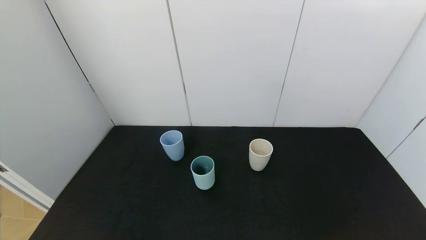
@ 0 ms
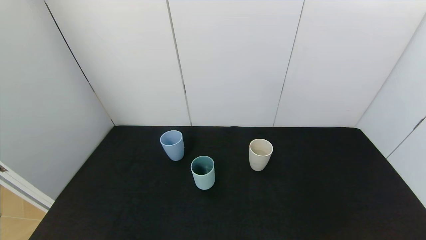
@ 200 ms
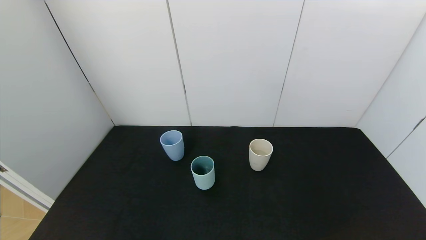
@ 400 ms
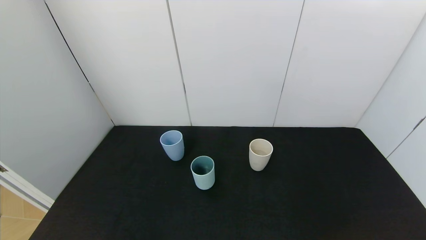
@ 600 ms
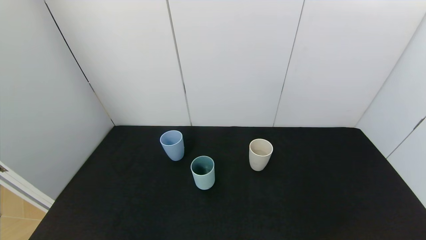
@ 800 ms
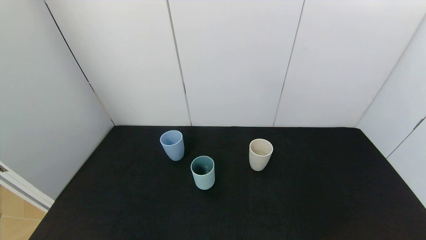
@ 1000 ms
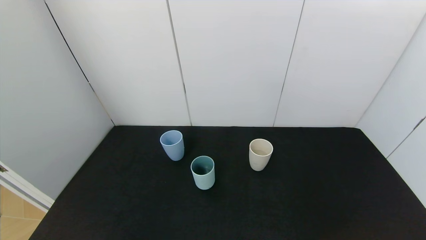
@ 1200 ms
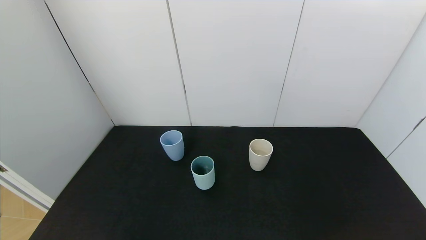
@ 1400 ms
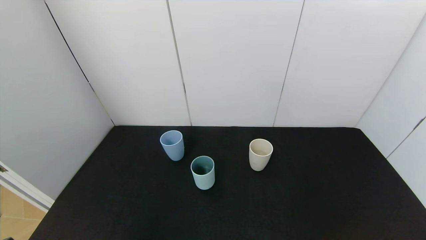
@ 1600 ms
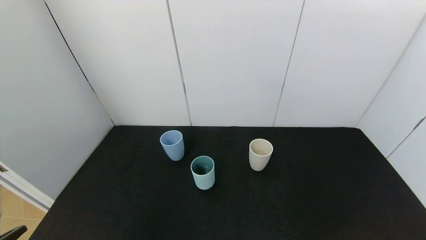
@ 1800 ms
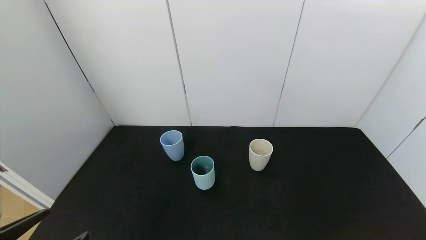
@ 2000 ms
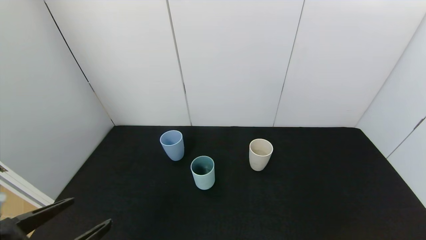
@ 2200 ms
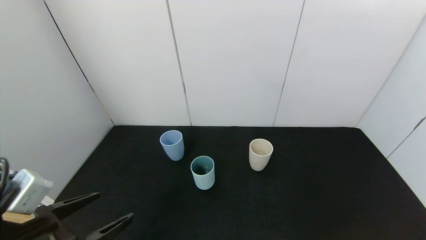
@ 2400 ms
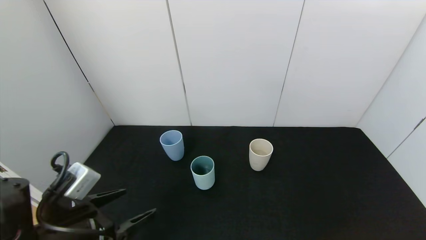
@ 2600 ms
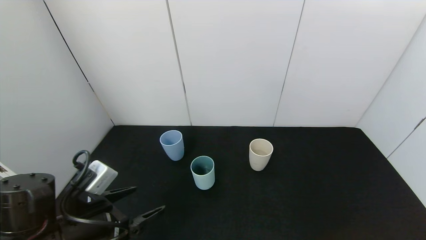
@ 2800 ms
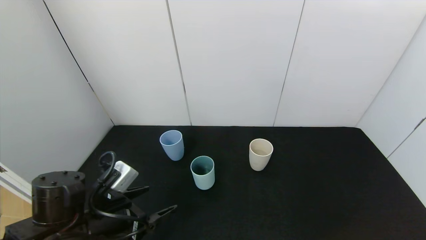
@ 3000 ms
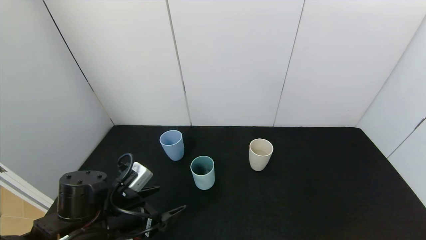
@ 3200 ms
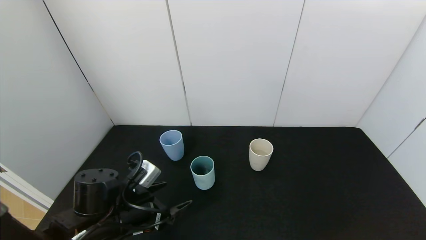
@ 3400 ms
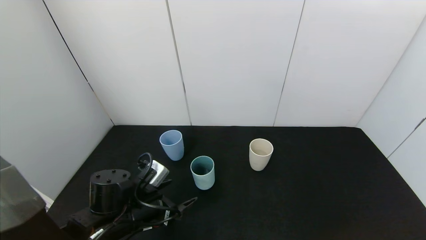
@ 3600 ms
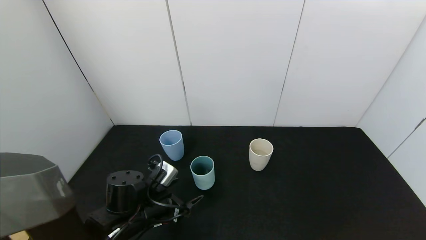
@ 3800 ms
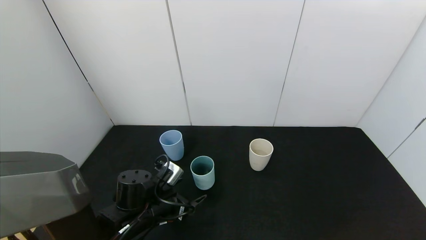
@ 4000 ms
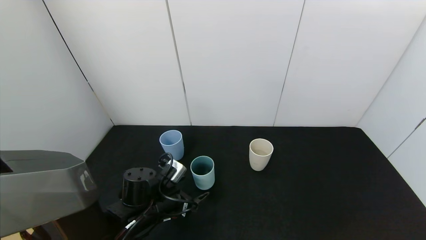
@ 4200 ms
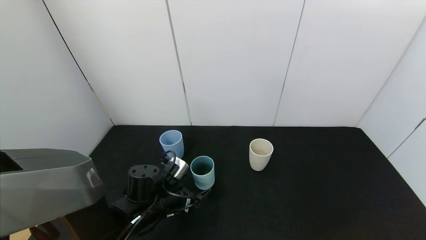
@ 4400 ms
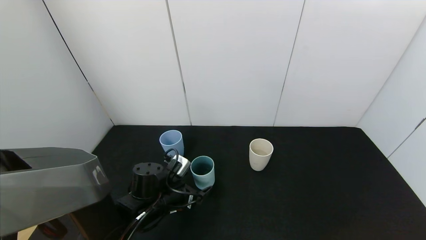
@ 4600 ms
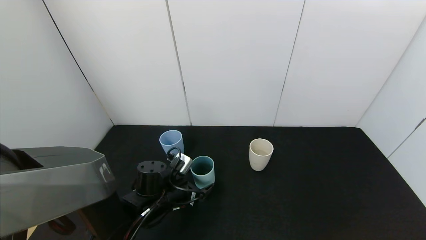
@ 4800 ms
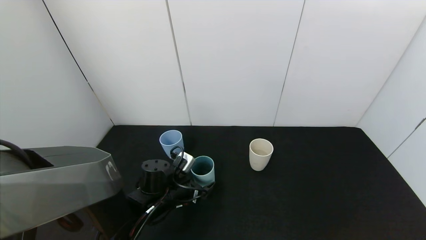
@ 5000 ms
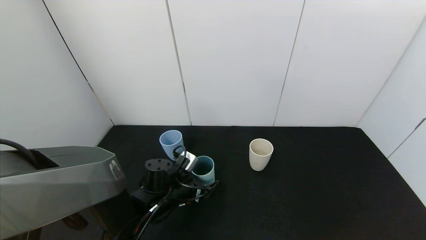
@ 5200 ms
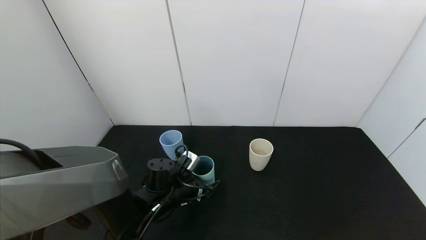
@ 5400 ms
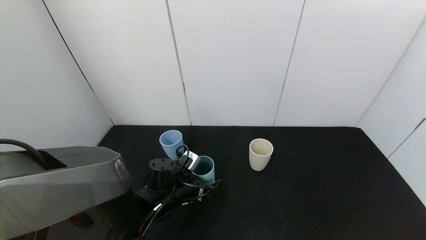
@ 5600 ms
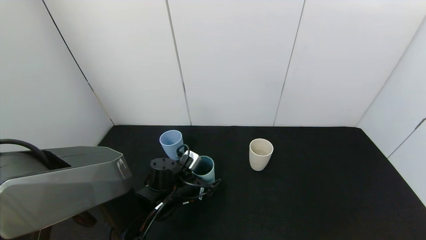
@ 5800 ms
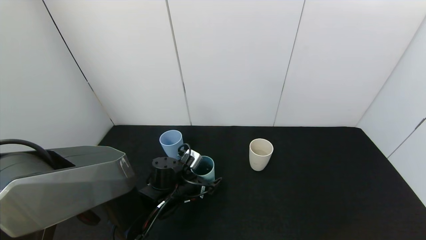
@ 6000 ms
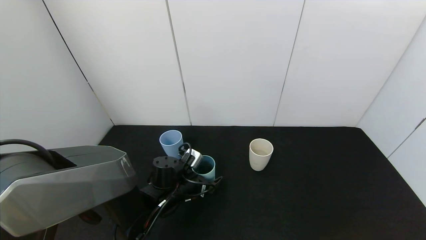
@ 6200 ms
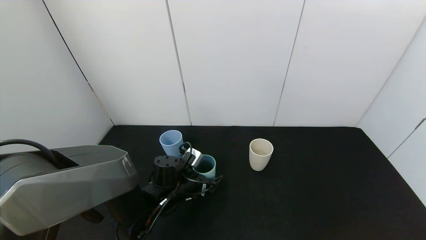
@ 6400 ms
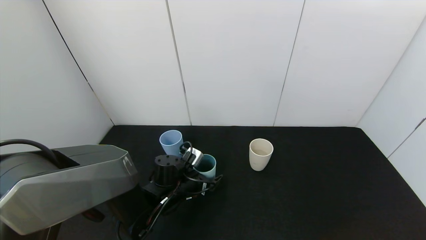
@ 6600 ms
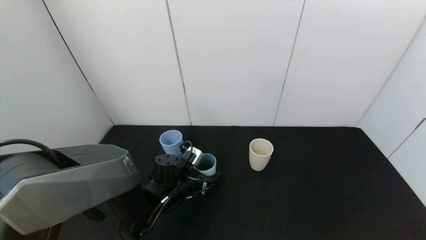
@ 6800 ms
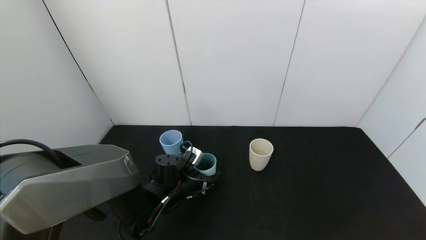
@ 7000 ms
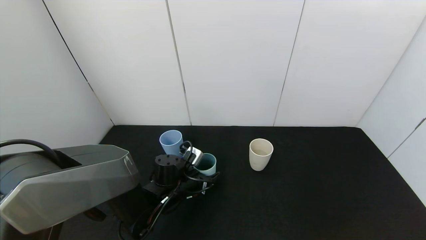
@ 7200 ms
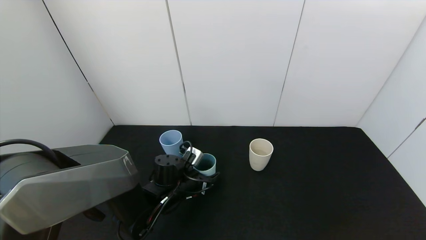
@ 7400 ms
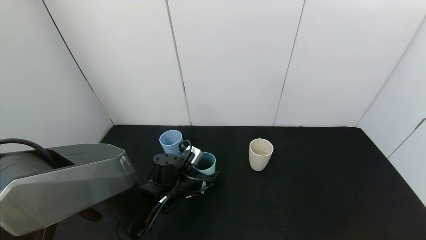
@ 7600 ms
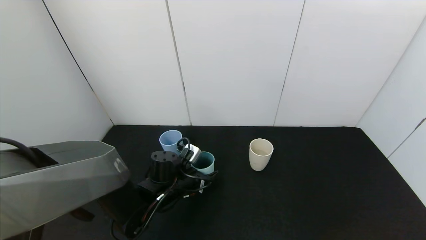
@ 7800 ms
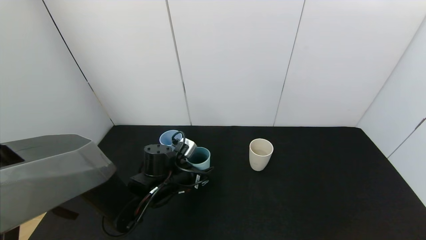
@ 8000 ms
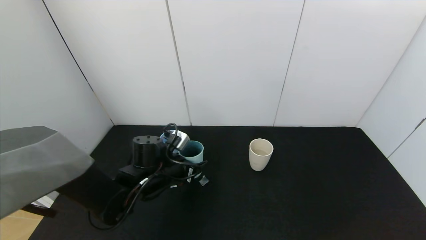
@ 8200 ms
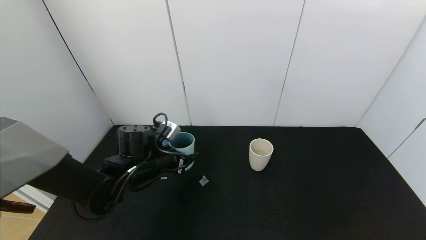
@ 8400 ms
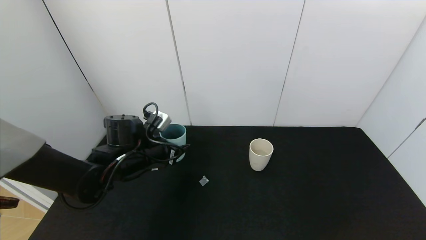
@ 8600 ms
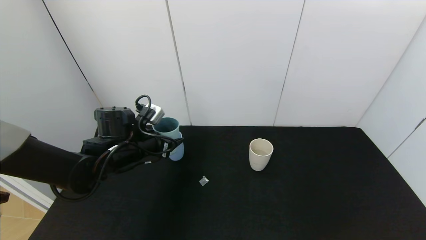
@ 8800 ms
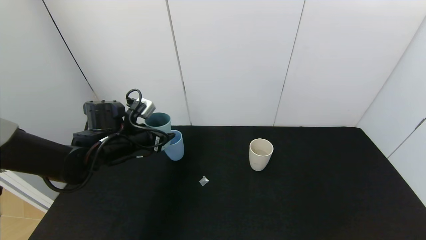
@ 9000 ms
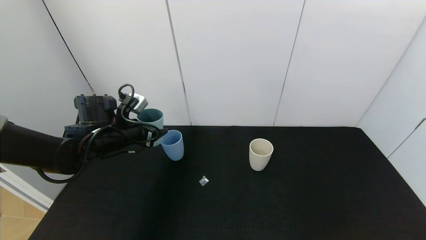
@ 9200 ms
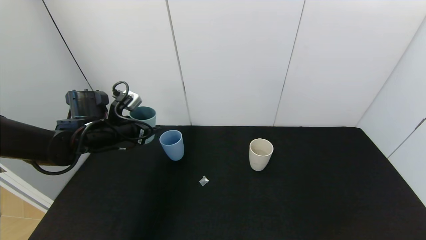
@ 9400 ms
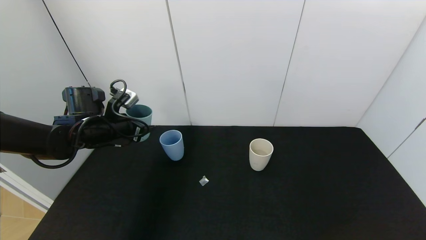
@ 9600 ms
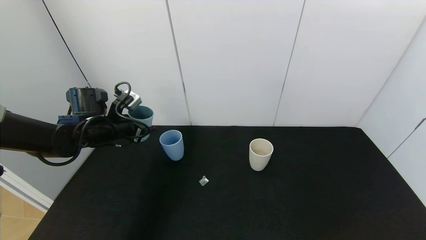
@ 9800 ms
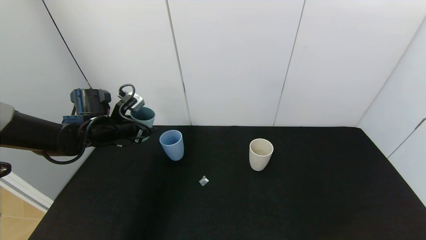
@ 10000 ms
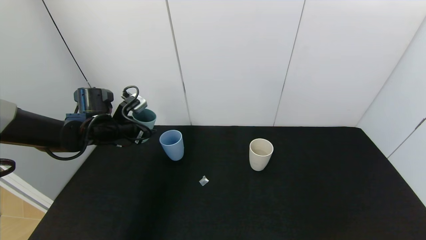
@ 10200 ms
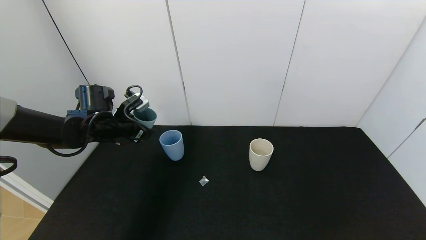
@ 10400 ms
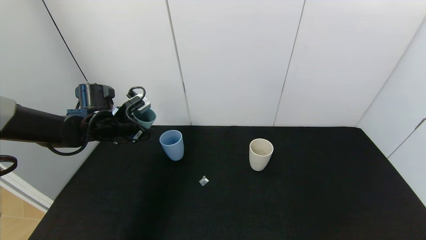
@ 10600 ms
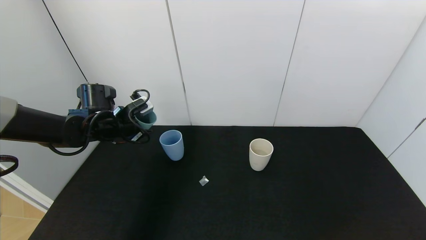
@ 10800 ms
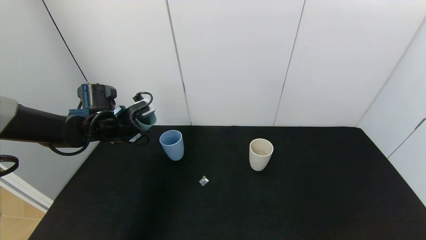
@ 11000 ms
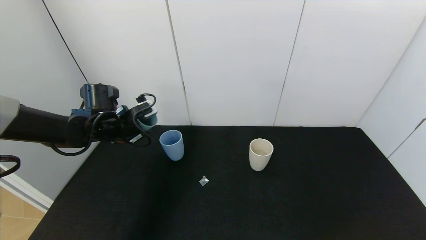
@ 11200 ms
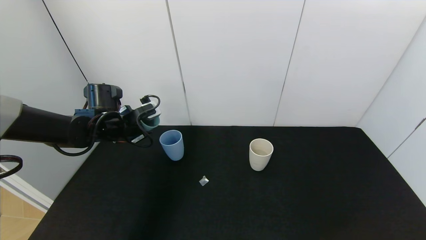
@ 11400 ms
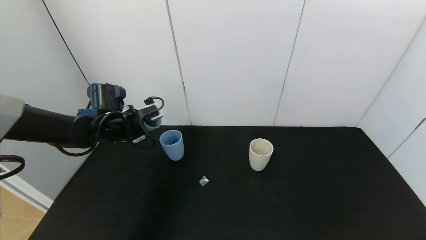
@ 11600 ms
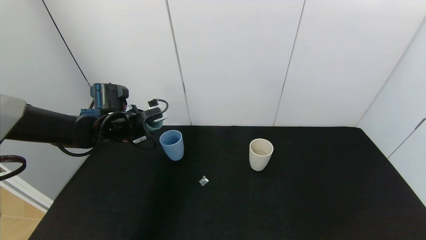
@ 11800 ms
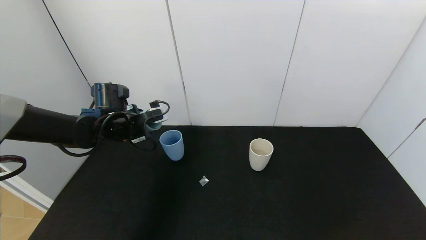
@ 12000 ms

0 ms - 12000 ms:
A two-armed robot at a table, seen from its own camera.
Task of the whole recording: use the gripper to pour the water into the other two cups on black table.
Step, 0 ms - 6600 ms: Grasp the green cup with the left gripper.
1600 ms - 3000 ms: The left gripper travels forward by some 20 cm.
3000 ms - 4400 ms: The left gripper shifts approximately 10 cm forward, downward and to the right.
4400 ms - 6000 ms: The left gripper moves some 5 cm.
6000 ms - 7600 ms: The left gripper closes up.
7600 ms - 9000 ms: The left gripper shifts about 15 cm upward and to the left.
9000 ms - 10400 ms: The left gripper shifts some 5 cm to the left.

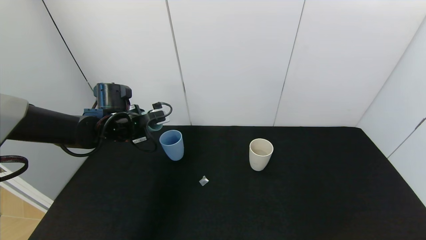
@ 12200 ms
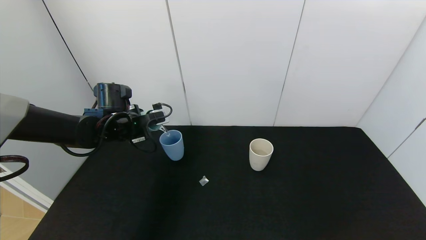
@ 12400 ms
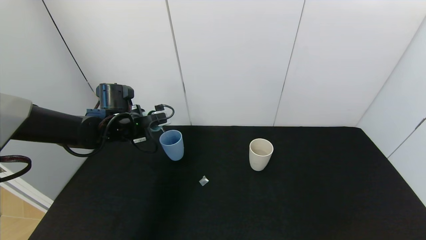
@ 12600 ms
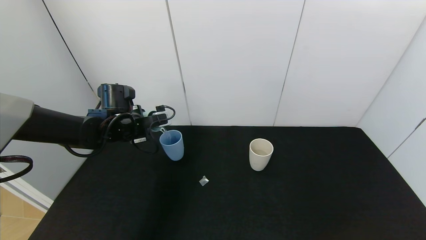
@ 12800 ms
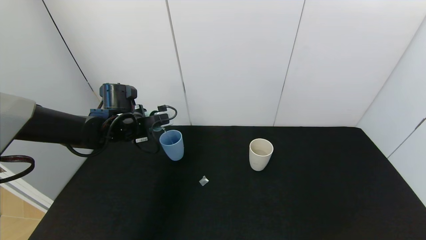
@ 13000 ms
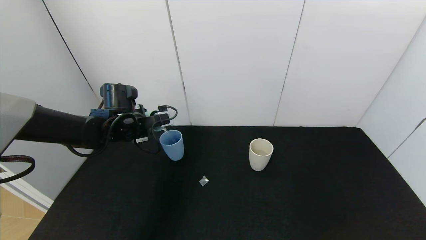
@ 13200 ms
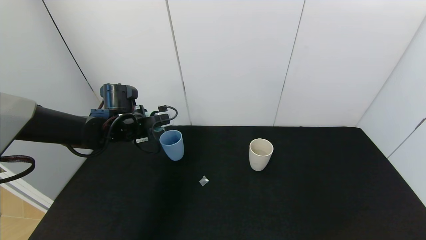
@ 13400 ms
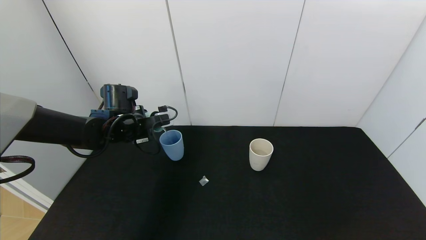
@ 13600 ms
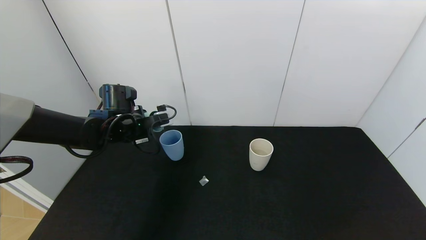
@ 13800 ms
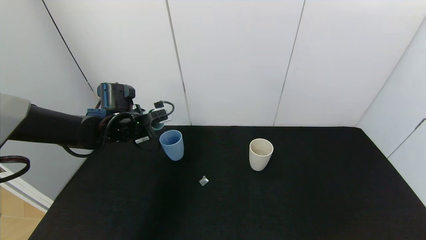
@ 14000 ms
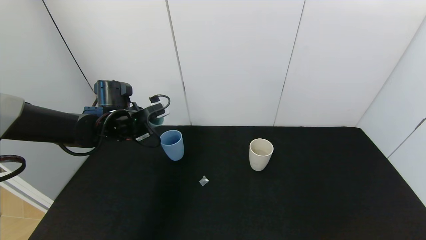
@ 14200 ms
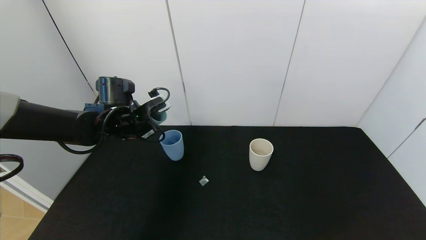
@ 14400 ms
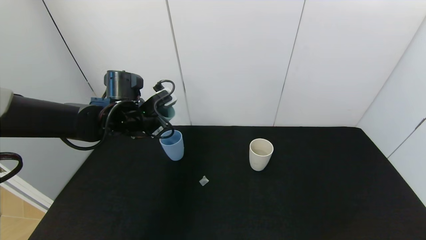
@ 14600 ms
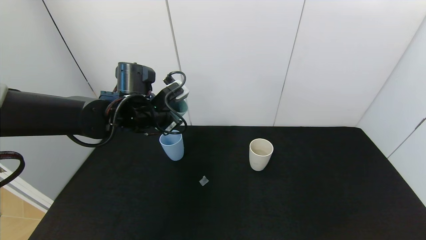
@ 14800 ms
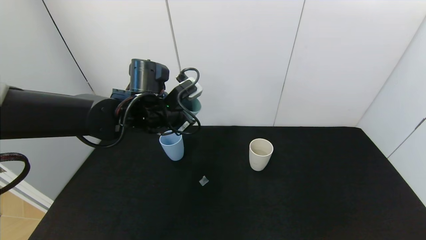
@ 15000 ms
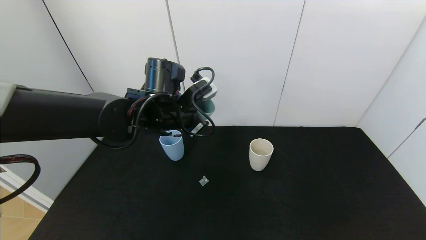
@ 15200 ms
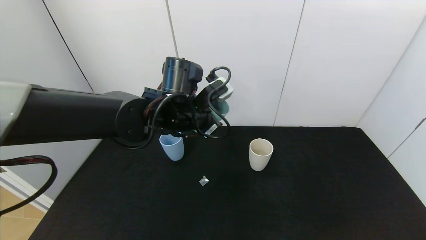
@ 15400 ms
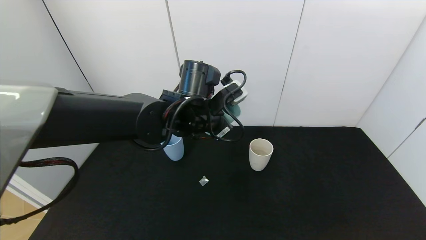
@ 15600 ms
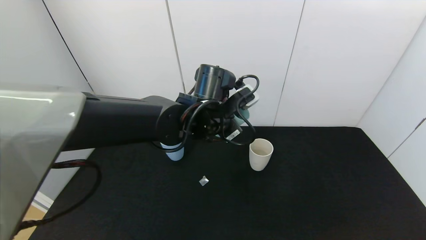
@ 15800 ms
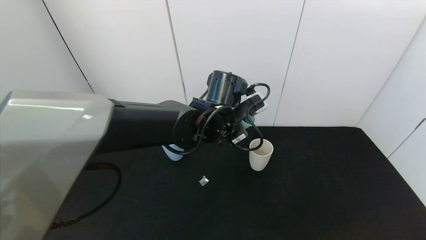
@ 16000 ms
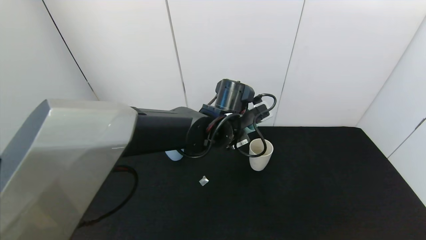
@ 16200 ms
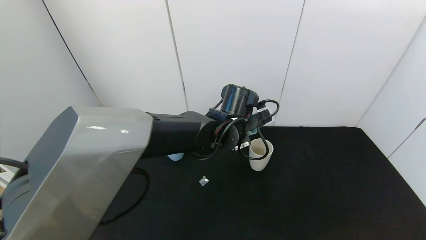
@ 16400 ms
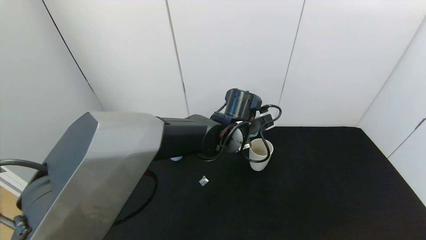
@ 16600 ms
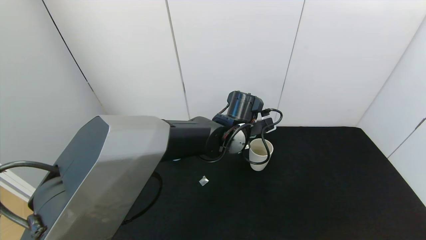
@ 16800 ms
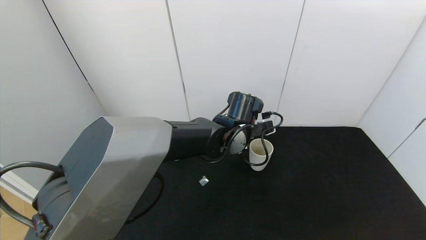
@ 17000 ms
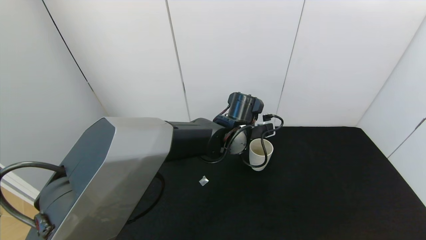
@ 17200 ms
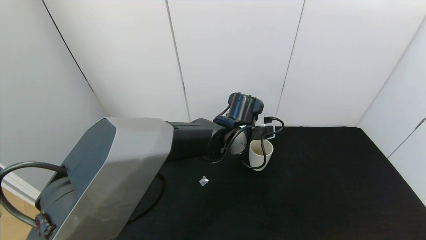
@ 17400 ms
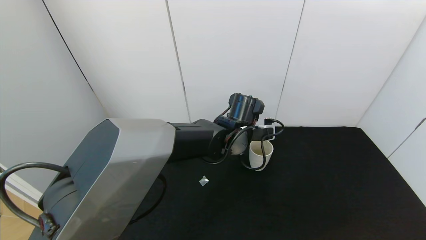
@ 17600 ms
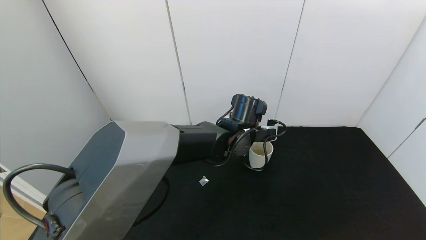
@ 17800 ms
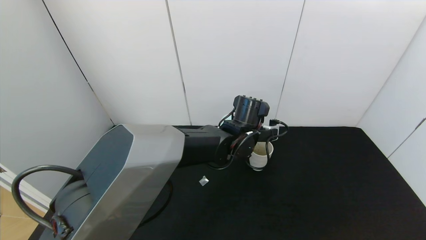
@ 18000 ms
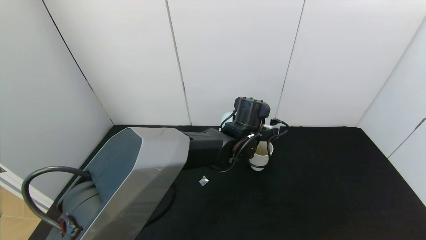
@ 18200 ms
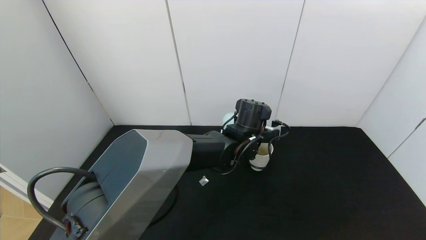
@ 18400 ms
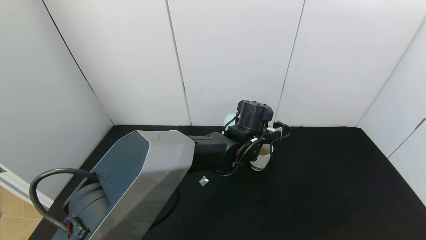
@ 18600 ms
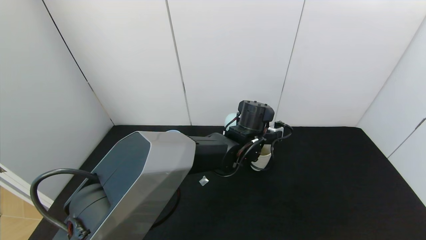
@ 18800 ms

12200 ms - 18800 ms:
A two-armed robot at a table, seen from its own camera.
Task of the whole recording: use the gripper to pour the water into the other two cups on black table.
Step, 12200 ms - 14600 ms: Pour water from green cup to blue cup with the left gripper.
12200 ms - 13800 ms: The grippers stay close to where they were, moving slightly.
13800 ms - 15400 ms: The left gripper goes some 15 cm to the right.
15400 ms - 17200 ms: The left gripper is displaced to the right and downward by about 10 cm.
17200 ms - 18800 ms: The grippers stay close to where they were, moving slightly.
